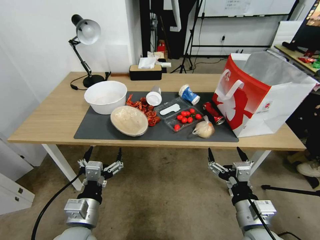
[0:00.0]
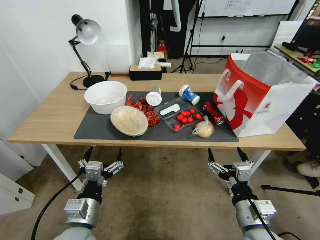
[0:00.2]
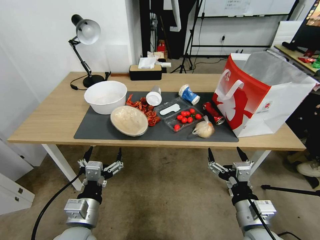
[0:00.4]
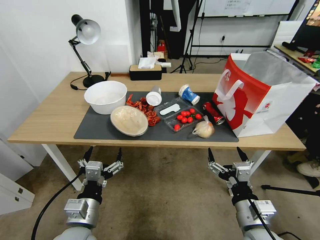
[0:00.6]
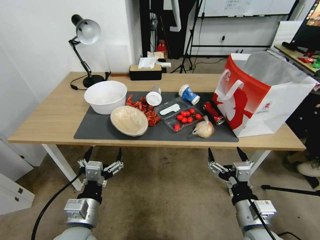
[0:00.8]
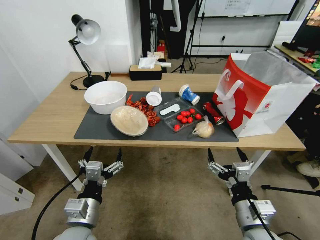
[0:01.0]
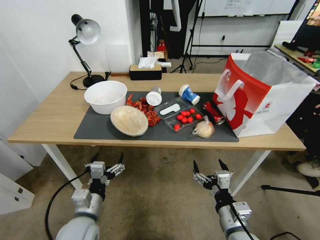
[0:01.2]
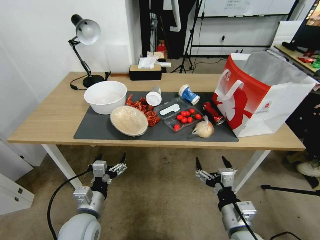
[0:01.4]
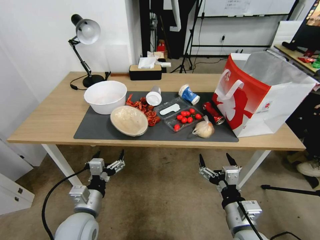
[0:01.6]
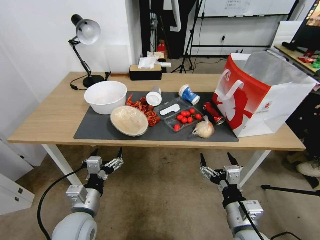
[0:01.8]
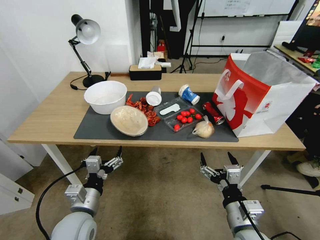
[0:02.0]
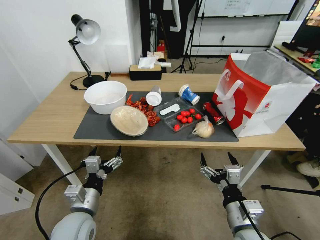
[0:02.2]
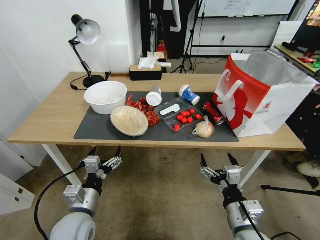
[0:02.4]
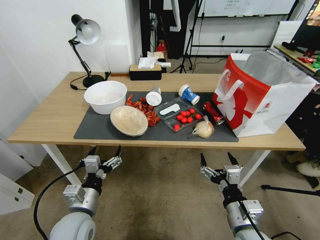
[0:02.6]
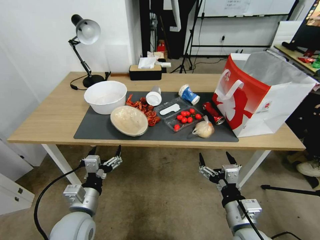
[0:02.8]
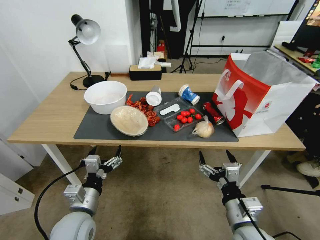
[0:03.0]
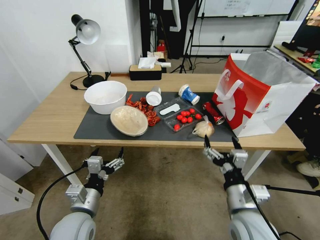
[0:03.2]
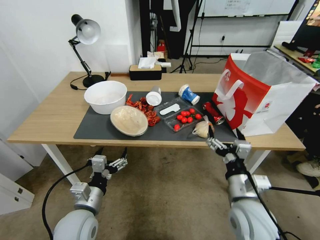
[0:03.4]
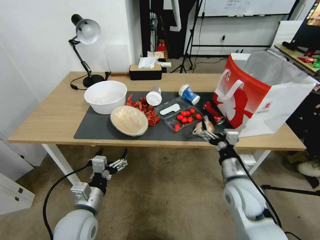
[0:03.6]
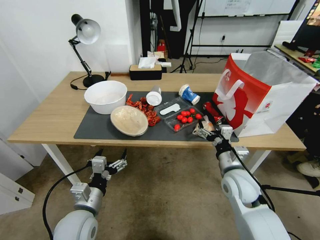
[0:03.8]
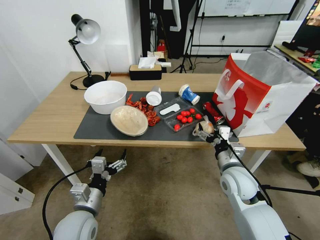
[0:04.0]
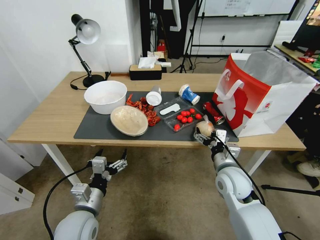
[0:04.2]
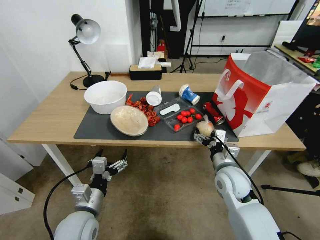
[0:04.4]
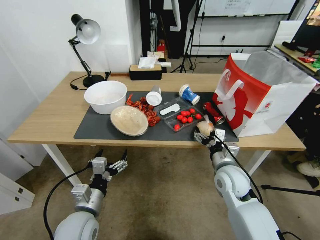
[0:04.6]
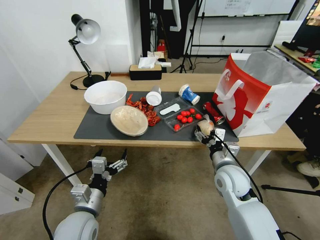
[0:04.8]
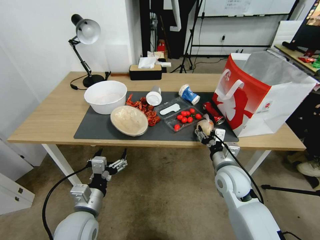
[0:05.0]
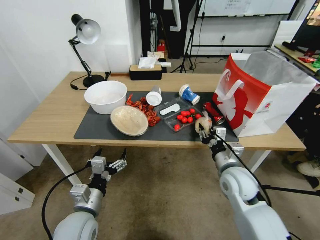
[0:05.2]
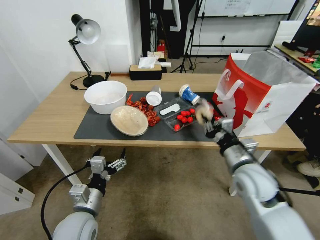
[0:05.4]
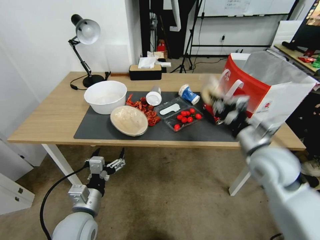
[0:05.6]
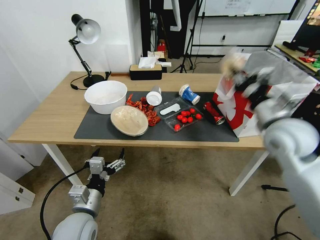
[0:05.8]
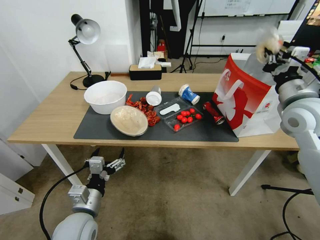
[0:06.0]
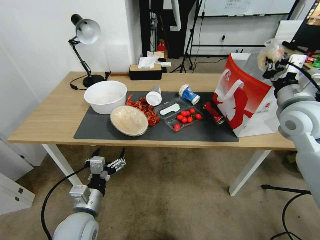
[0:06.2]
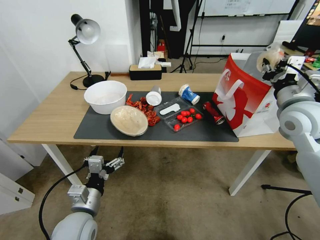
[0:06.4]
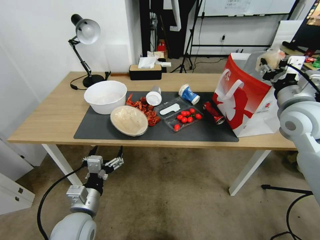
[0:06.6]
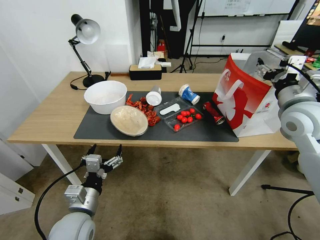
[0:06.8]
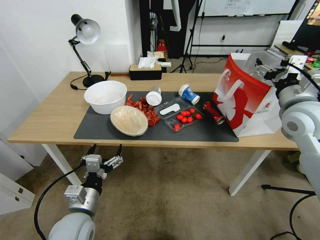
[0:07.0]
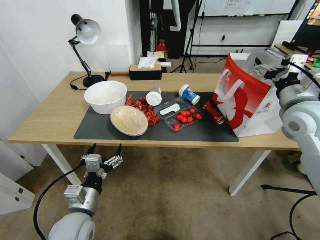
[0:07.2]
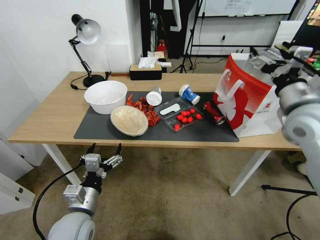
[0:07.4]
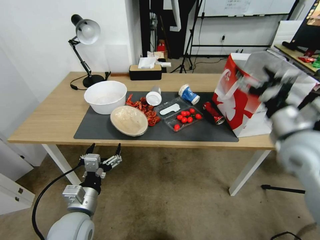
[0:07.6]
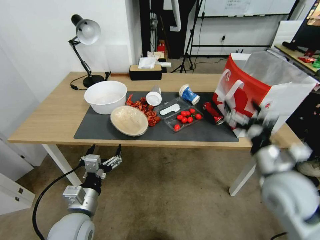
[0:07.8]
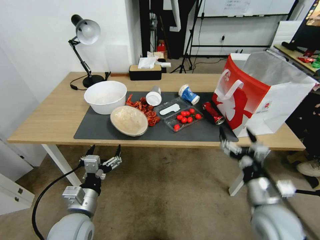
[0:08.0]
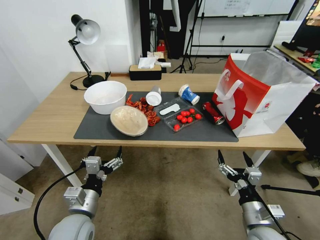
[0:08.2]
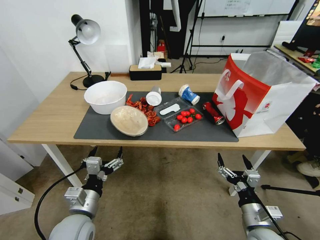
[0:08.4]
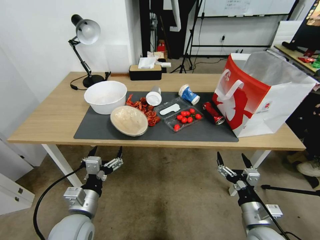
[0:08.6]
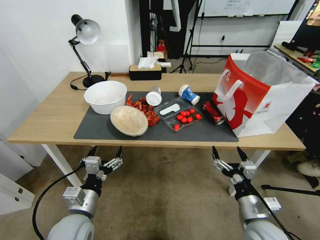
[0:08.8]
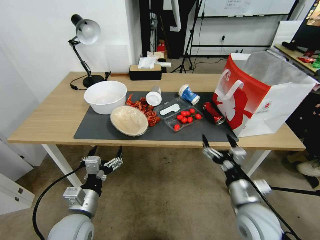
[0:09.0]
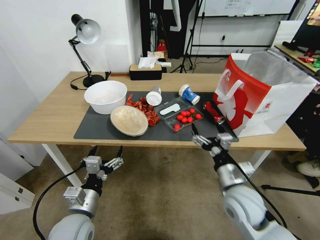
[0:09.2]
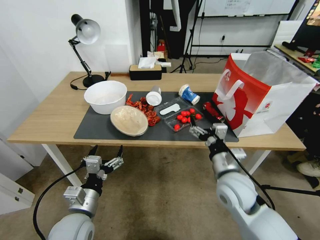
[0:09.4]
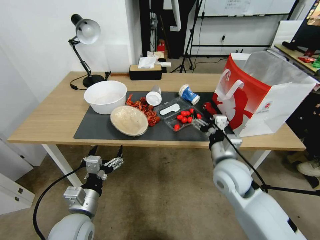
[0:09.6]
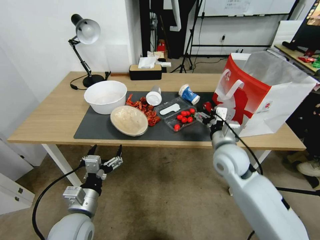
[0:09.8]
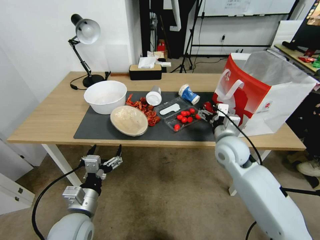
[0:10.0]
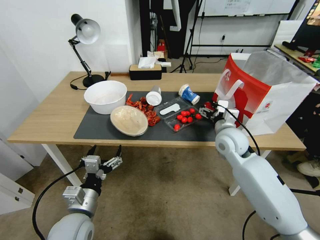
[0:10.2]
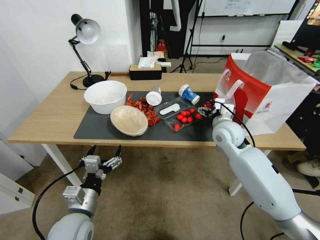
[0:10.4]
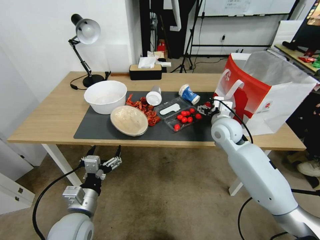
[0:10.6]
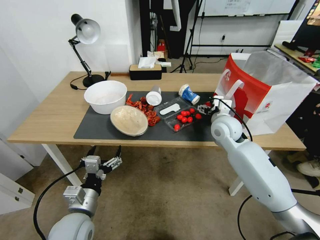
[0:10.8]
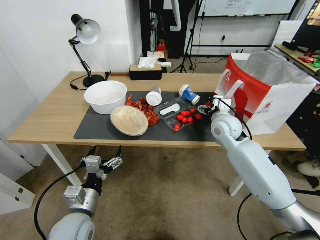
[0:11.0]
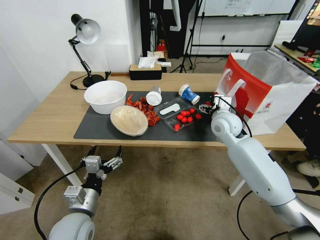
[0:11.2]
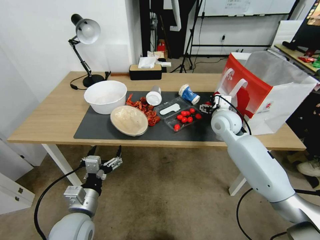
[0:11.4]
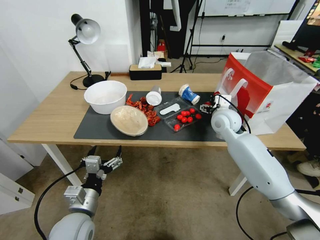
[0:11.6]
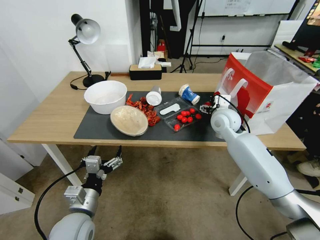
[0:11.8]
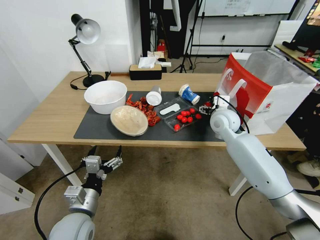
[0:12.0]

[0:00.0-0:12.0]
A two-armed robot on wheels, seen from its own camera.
0:01.6 to 0:03.0: The grippers move only a little.
0:03.0 to 0:04.4: The right gripper heads forward, covering some 15 cm.
0:04.4 to 0:06.0: The right gripper heads upward and to the right, covering roughly 25 cm, and closes.
0:06.0 to 0:07.6: The right gripper travels backward by roughly 10 cm, and opens its fingers.
0:07.6 to 0:09.0: The right gripper goes roughly 20 cm downward, backward and to the left.
0:09.0 to 0:10.4: The right gripper heads forward, covering roughly 20 cm.
0:10.4 to 0:12.0: The right gripper is displaced forward by about 5 cm.

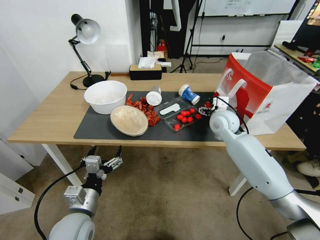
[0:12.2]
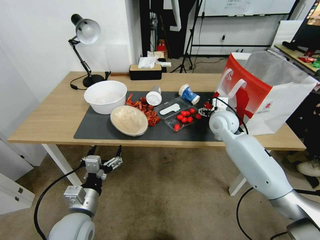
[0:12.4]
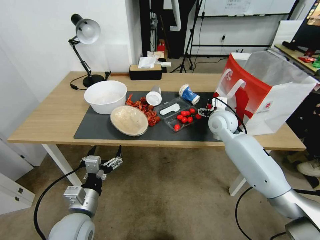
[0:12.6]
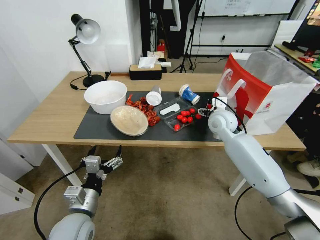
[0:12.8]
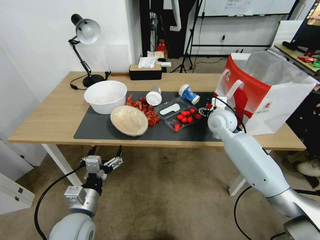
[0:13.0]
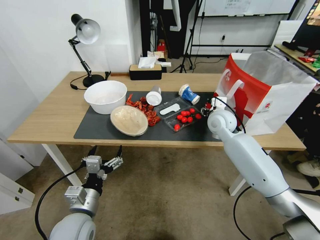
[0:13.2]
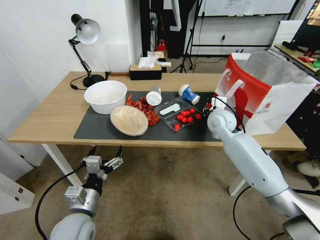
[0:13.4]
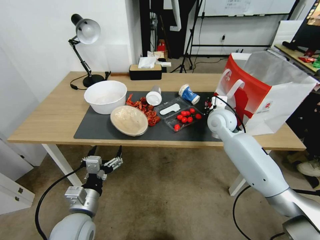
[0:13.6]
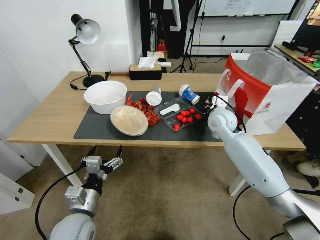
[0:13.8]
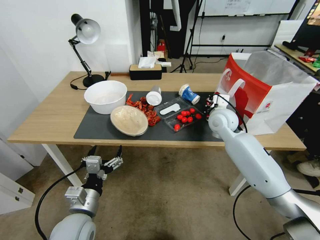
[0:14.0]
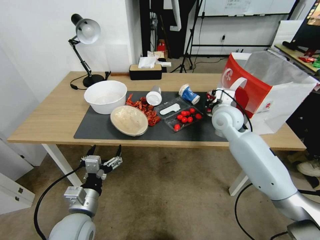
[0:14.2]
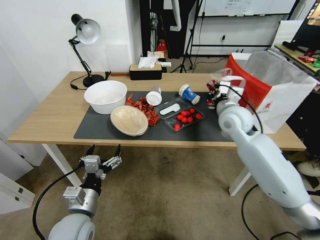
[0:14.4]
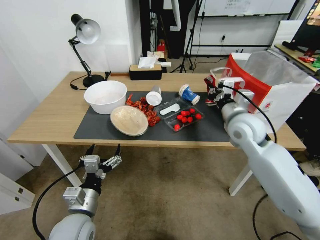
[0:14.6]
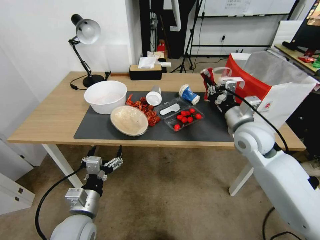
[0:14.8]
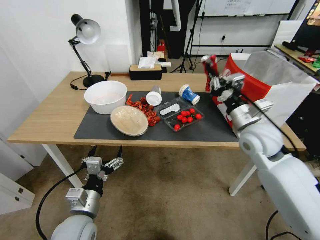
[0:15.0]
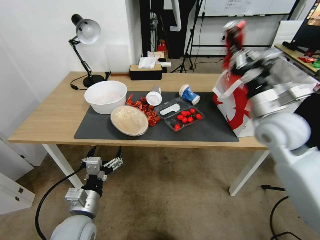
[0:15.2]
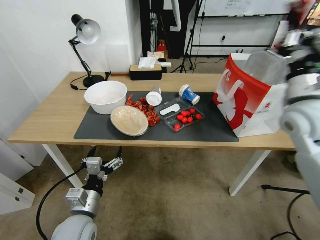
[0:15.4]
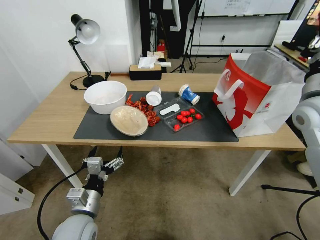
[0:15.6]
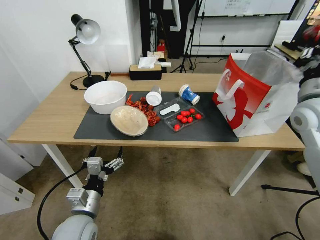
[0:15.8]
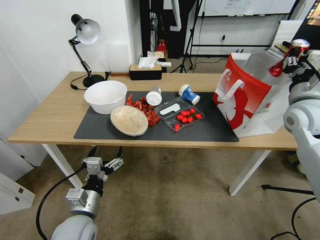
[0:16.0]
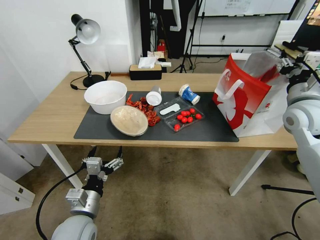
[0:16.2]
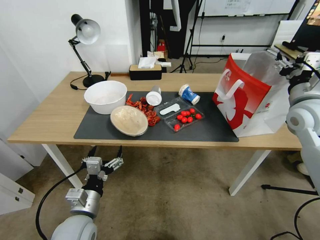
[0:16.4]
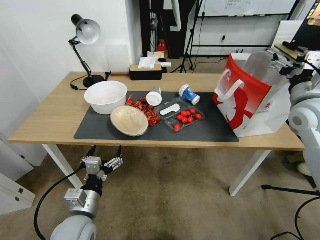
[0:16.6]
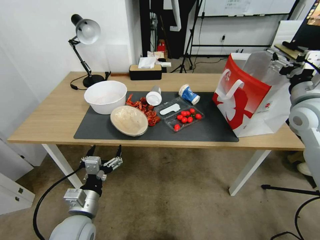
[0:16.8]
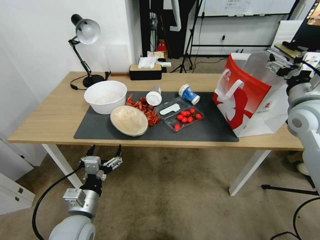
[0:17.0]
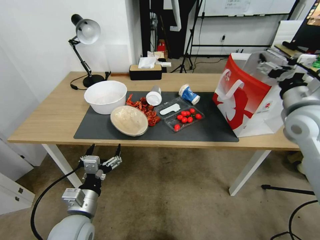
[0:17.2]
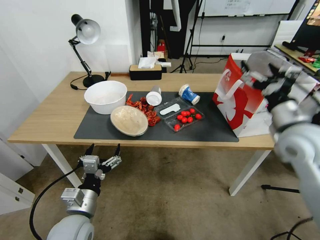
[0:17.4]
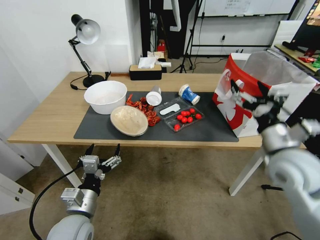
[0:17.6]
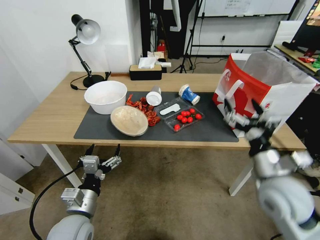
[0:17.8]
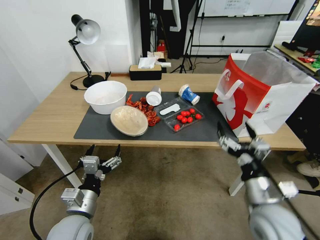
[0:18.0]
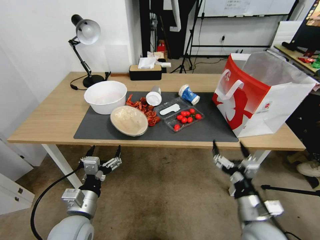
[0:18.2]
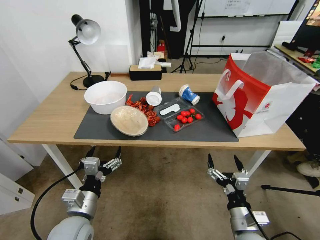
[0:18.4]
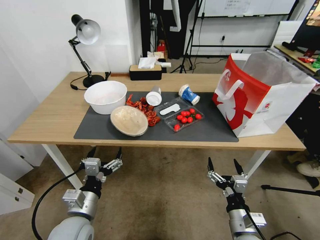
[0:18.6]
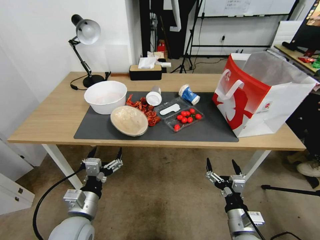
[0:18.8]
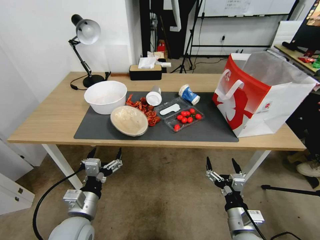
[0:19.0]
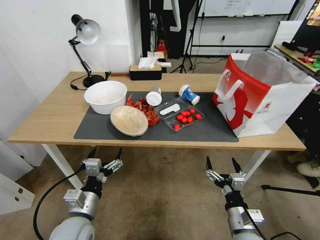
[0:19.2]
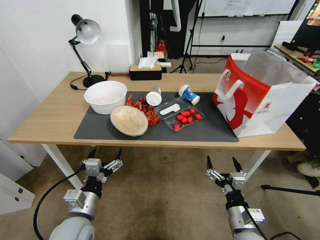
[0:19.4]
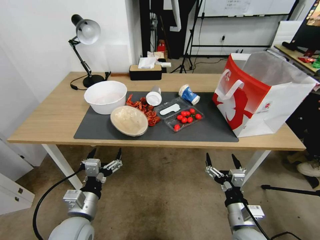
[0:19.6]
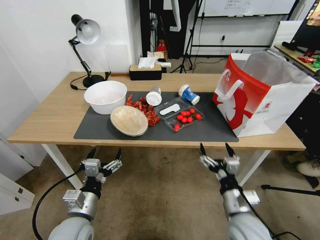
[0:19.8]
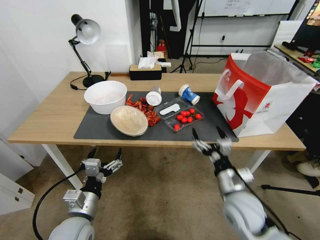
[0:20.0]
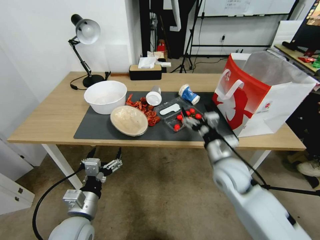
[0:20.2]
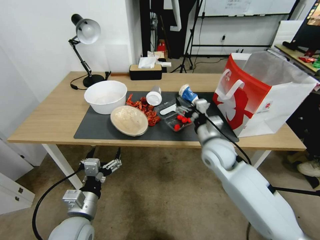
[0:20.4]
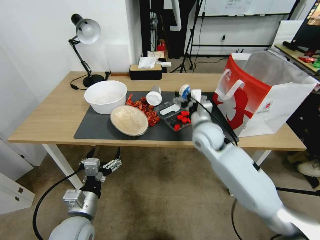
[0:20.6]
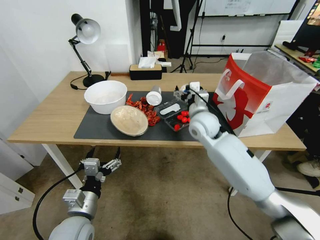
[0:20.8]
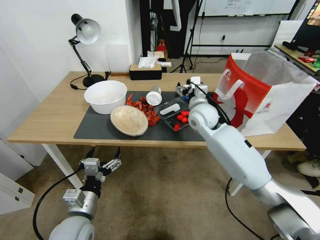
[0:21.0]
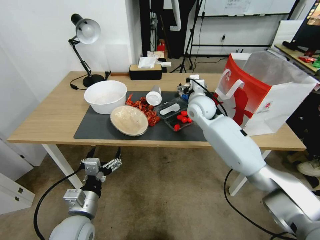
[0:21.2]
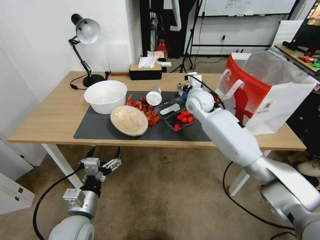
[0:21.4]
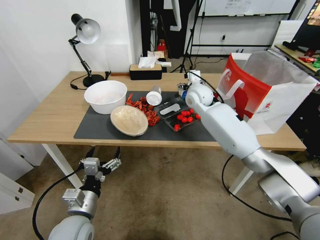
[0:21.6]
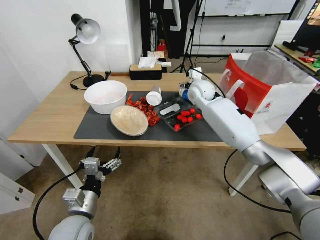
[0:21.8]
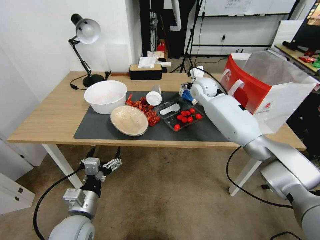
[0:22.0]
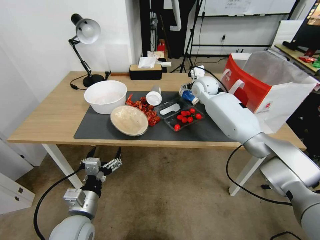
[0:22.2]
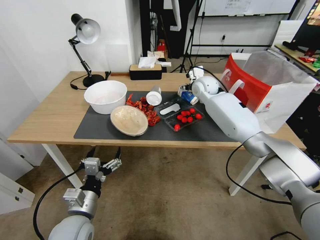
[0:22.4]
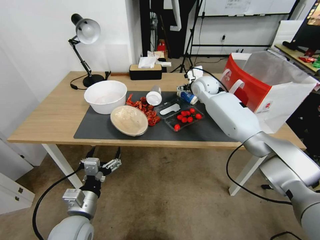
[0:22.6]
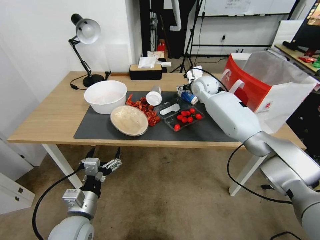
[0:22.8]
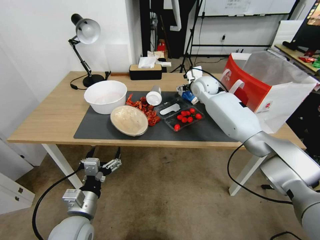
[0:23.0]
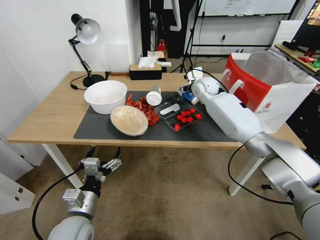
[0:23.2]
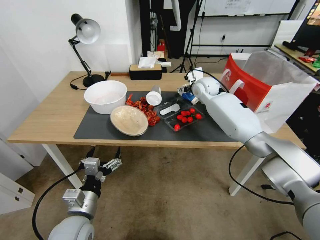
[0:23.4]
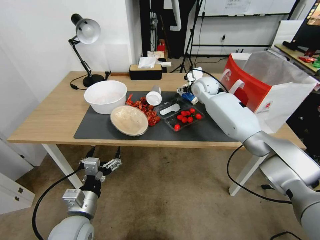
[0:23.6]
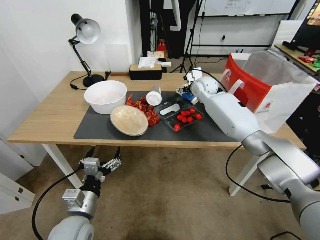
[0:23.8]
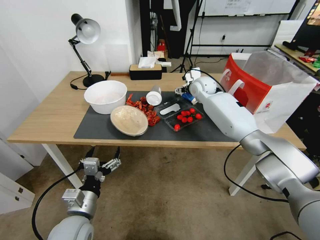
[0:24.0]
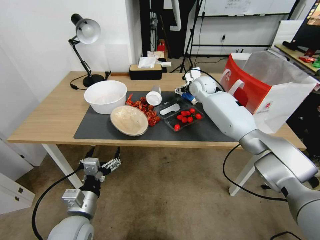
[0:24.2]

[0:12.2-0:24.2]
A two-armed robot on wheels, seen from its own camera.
0:12.2 to 0:13.8: The right gripper closes up.
0:13.8 to 0:15.2: The right gripper is displaced backward, upward and to the right by approximately 20 cm.
0:15.2 to 0:16.6: The right gripper shifts some 10 cm to the right, and opens.
0:16.6 to 0:18.2: The right gripper goes approximately 35 cm downward, backward and to the left.
0:18.2 to 0:19.8: The grippers make only small movements.
0:19.8 to 0:21.2: The right gripper travels forward and upward by some 35 cm.
0:21.2 to 0:22.6: The right gripper heads forward, covering approximately 10 cm.
0:22.6 to 0:24.2: Both grippers stay about where they are.
